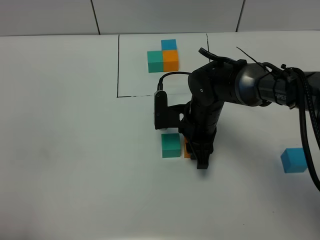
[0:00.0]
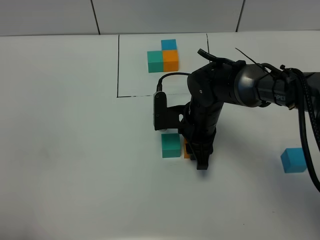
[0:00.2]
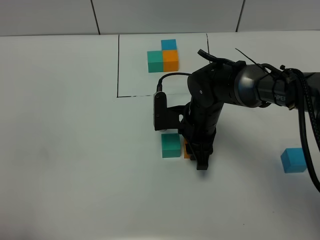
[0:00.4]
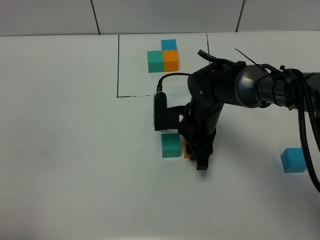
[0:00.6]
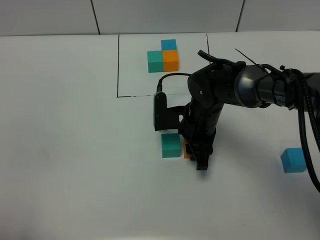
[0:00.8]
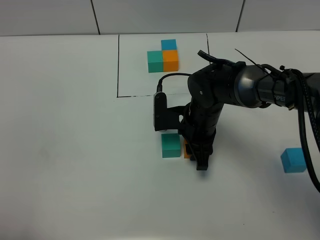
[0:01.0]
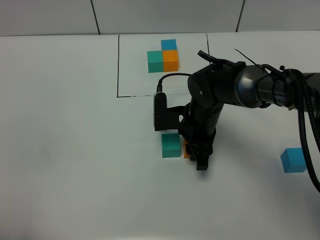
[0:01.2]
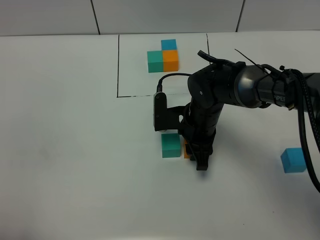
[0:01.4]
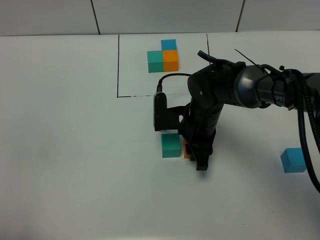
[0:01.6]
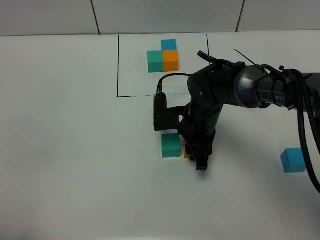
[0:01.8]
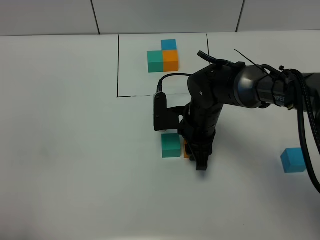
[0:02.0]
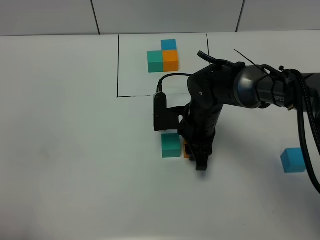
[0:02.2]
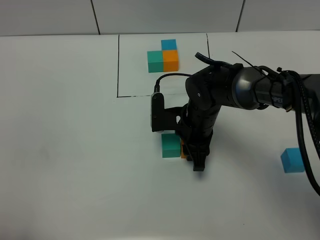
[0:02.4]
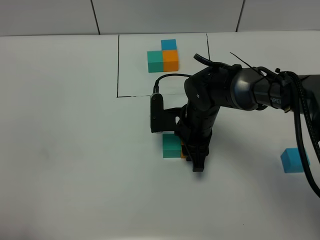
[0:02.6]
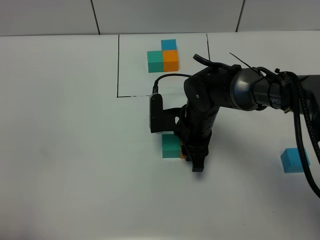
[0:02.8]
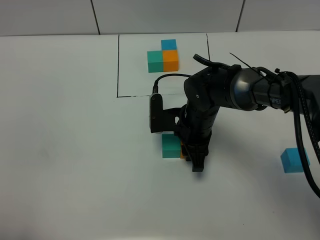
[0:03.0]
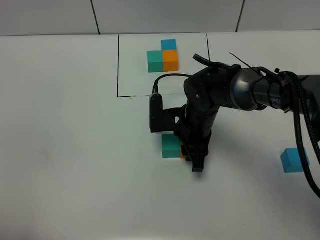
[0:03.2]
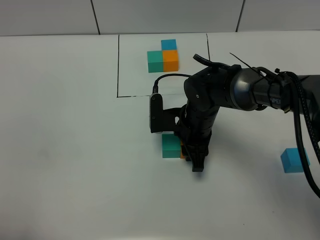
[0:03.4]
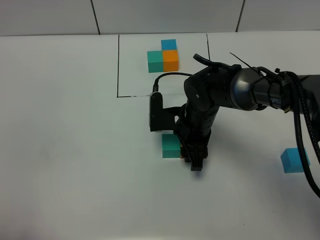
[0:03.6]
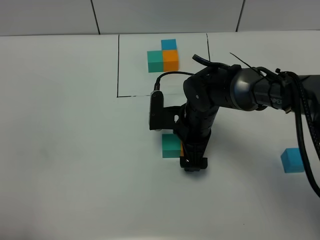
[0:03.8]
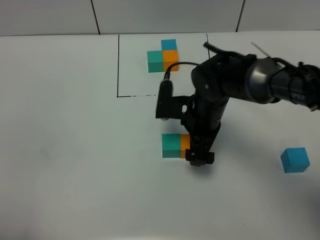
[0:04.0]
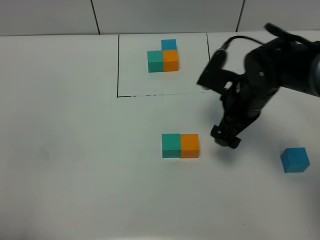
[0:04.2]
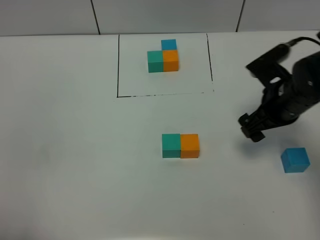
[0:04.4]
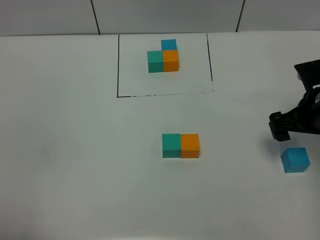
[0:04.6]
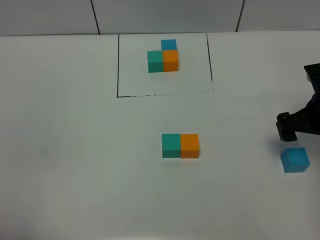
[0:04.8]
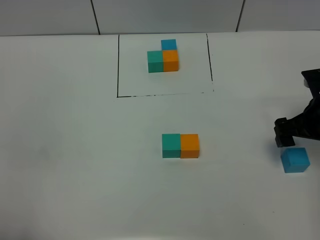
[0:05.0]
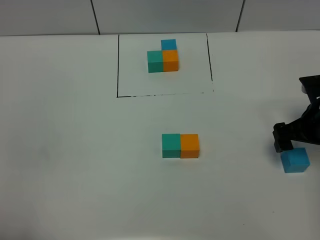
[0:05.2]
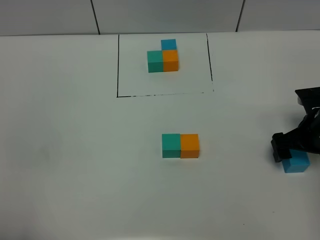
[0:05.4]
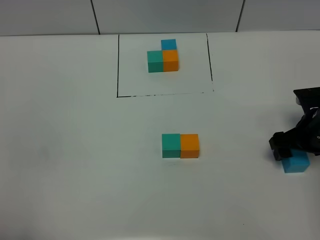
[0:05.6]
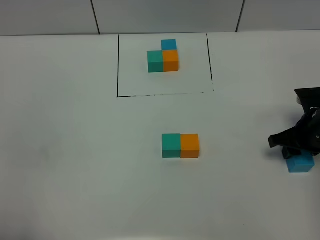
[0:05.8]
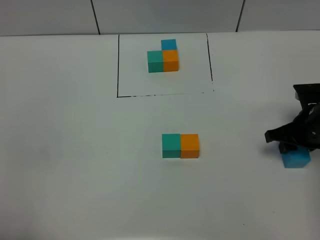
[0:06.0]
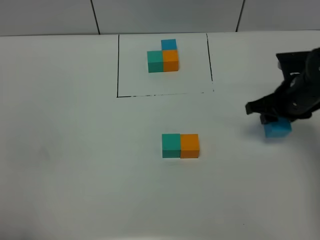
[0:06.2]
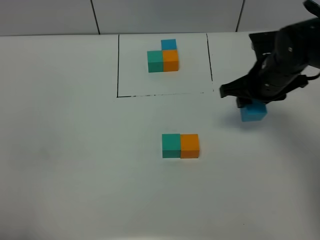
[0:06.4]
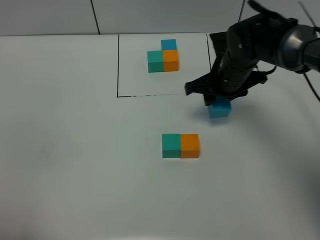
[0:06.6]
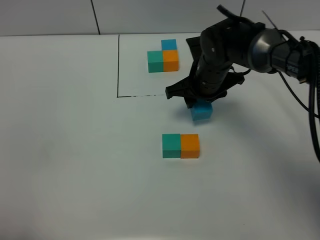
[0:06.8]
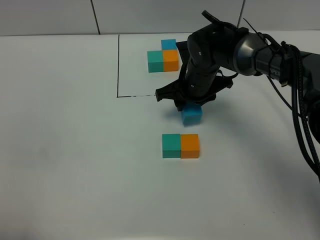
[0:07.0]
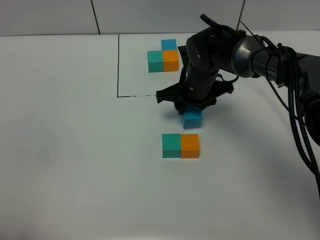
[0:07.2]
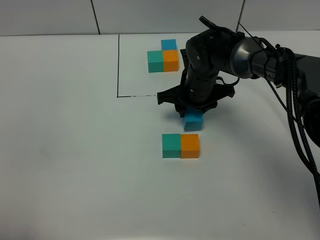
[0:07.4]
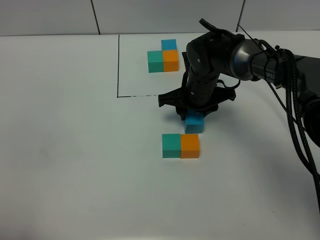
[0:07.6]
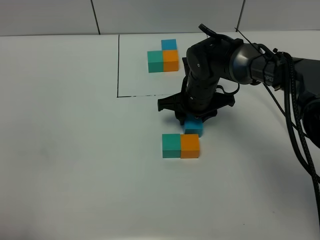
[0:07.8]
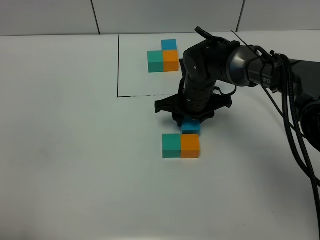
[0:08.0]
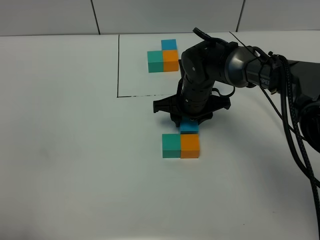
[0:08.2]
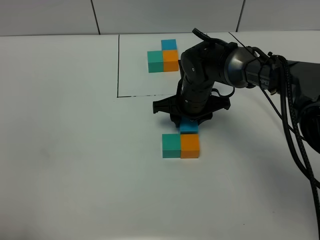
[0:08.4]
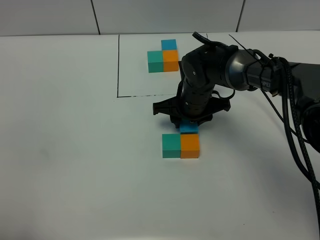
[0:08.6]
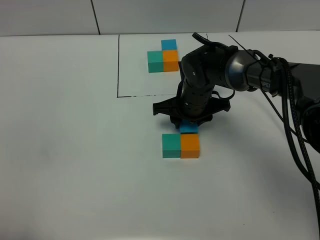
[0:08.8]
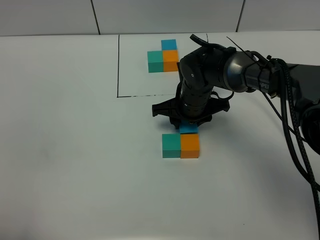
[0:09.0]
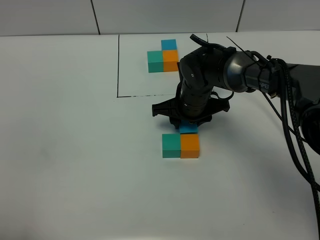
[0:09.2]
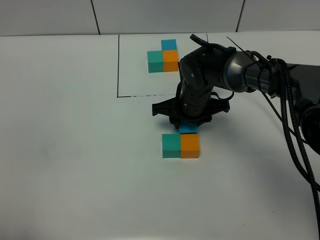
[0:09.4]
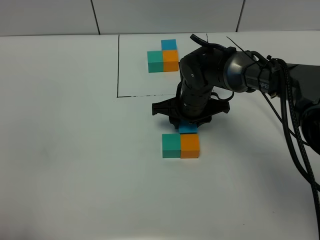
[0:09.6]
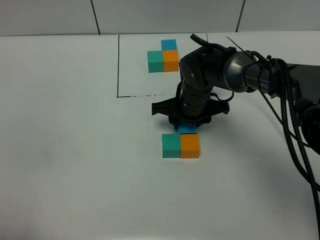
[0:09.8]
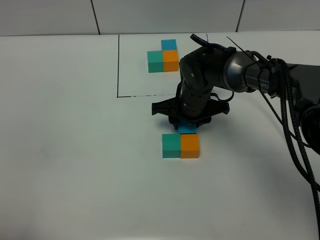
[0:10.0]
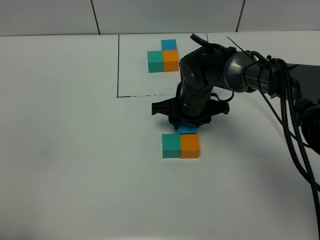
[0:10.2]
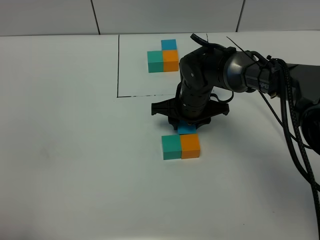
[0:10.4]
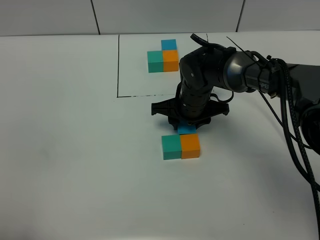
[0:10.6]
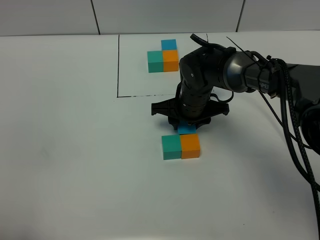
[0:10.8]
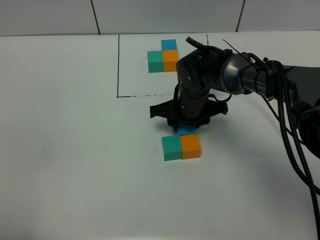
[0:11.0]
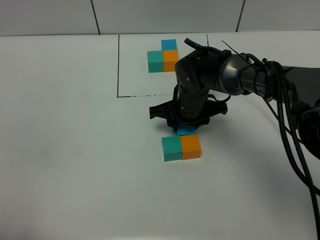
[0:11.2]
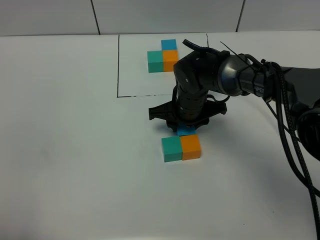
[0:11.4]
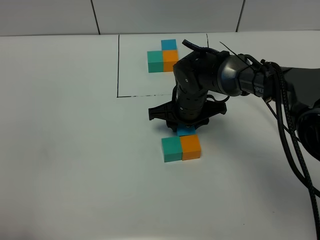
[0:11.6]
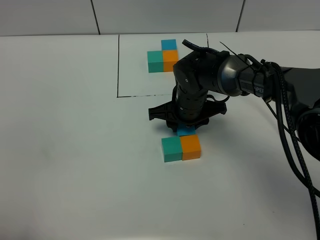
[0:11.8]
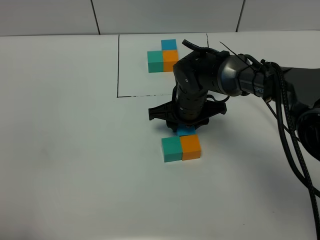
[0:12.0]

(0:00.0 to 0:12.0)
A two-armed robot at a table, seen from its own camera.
Task of the whole recording: According to the building block template in front, assemble the scattered blocks together.
Step, 0:00.0 - 0:03.6: Put the orange build block on the right of the green build block.
0:00.0 - 0:03.0: Both grippers stay put.
0:03.0 - 0:04.4: The right gripper goes some 20 cm to the right and upward, and opens up.
0:04.4 - 0:06.0: The right gripper heads to the right and downward, covering about 10 cm, and closes its fingers.
0:06.0 - 0:07.6: The right gripper shifts some 20 cm to the left and forward.
0:07.6 - 0:09.0: The grippers stay close to where they were, moving slightly.
0:09.0 - 0:12.0: Both grippers stay about where they are.

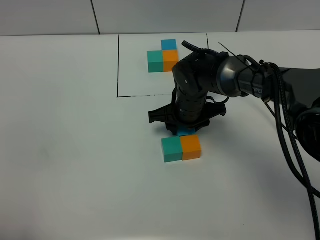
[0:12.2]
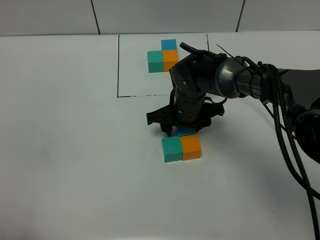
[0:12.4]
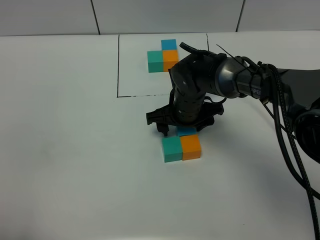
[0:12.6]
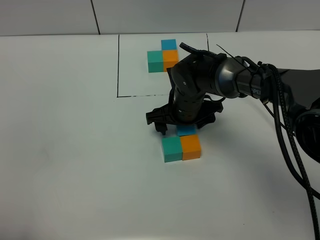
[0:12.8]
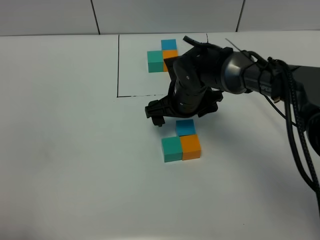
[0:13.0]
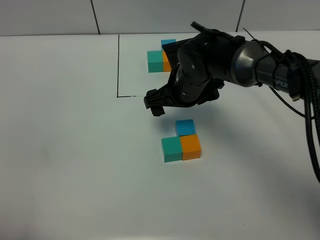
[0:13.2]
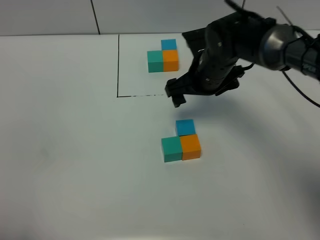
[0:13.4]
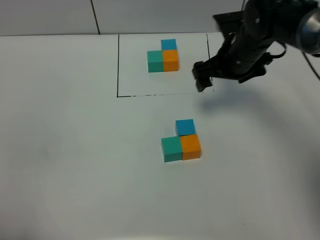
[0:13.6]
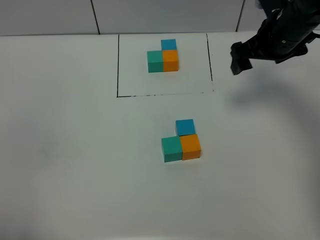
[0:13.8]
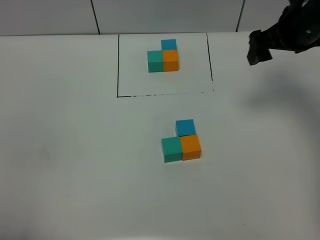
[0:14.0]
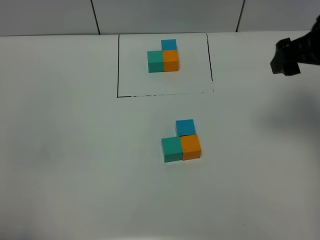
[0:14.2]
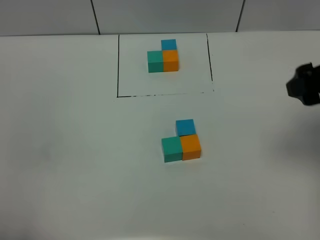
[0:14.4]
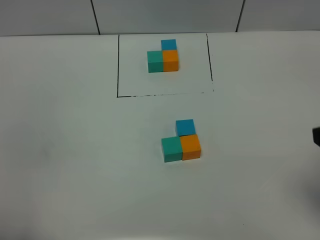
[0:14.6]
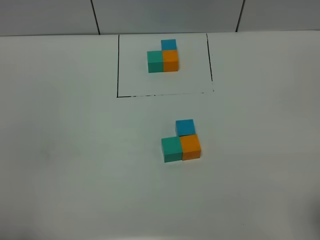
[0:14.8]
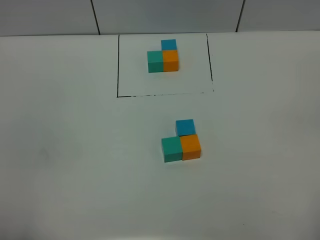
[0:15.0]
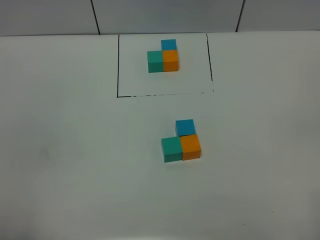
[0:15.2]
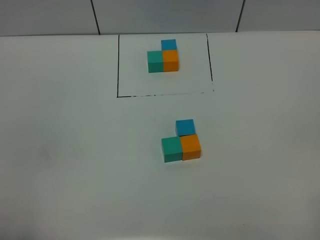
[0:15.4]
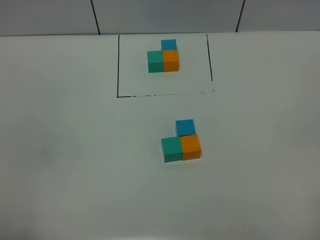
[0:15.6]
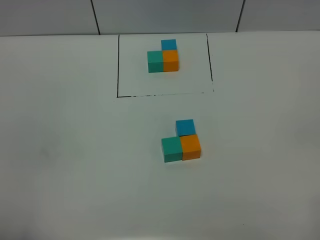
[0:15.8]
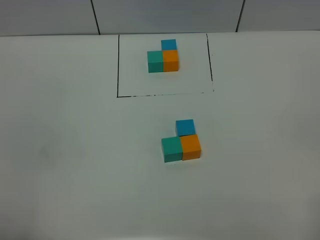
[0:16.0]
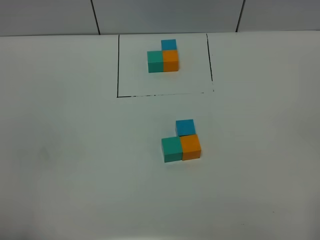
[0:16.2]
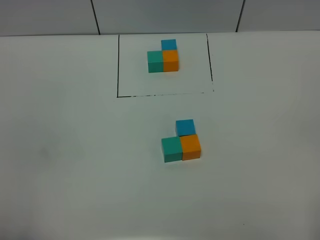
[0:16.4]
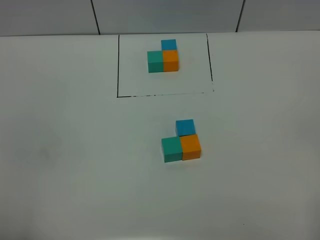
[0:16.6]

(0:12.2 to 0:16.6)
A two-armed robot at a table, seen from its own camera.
Task of the whole recording: According to the building block template in front, assemble the scattered blocks together.
0:12.2 - 0:13.6: The right gripper moves to the right and upward, roughly 15 cm, and opens its fingers.
0:13.6 - 0:15.2: The right gripper shifts some 40 cm backward.

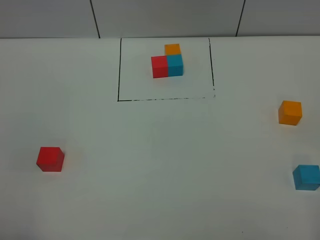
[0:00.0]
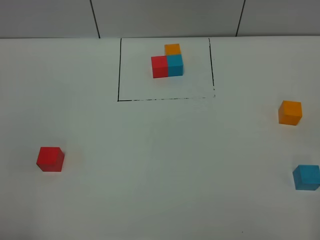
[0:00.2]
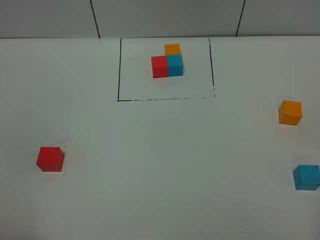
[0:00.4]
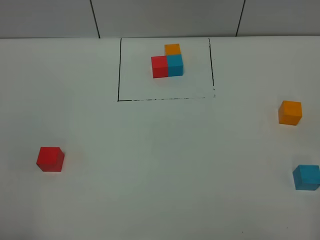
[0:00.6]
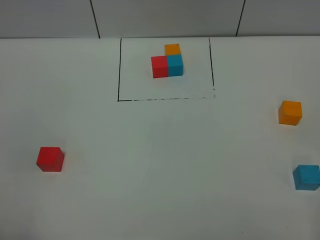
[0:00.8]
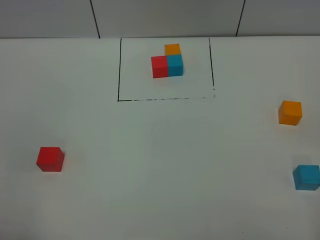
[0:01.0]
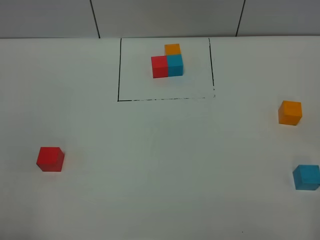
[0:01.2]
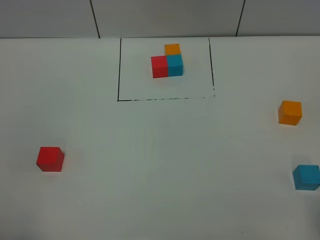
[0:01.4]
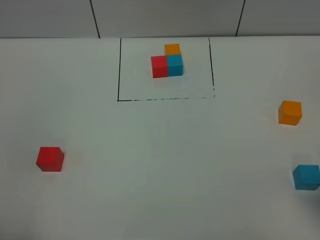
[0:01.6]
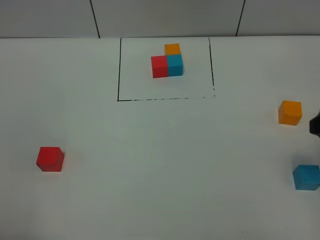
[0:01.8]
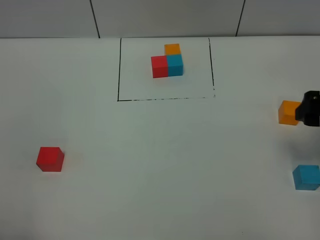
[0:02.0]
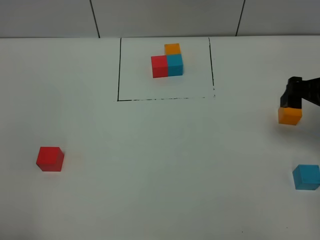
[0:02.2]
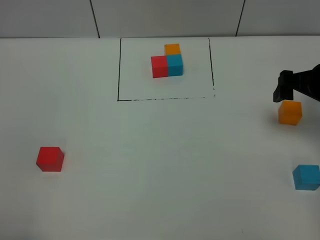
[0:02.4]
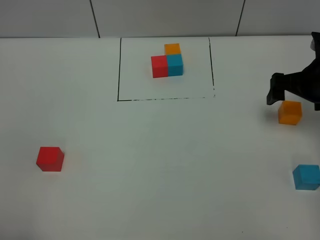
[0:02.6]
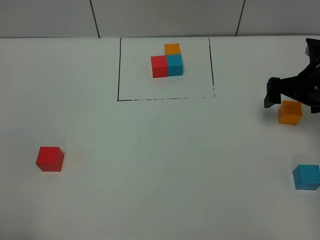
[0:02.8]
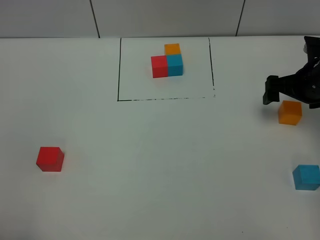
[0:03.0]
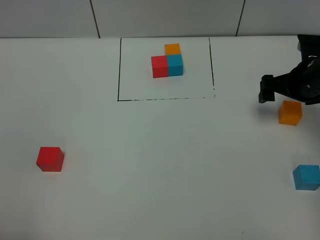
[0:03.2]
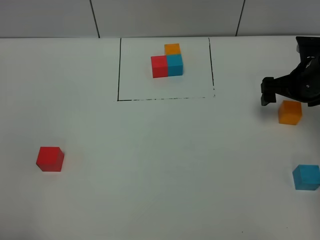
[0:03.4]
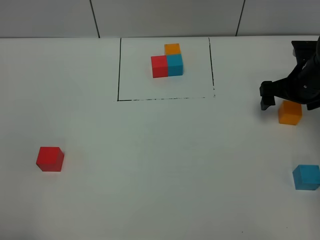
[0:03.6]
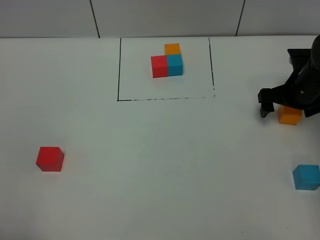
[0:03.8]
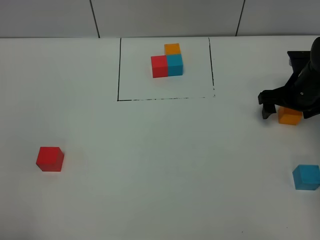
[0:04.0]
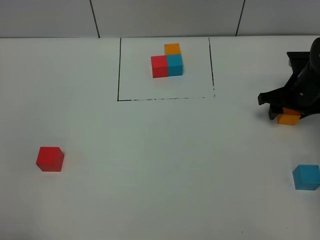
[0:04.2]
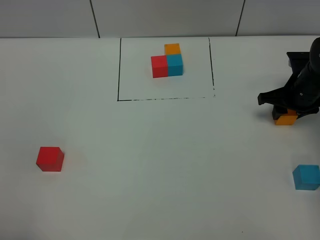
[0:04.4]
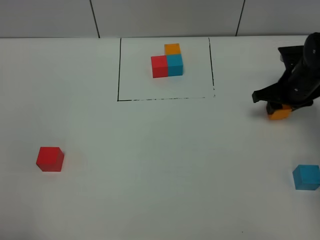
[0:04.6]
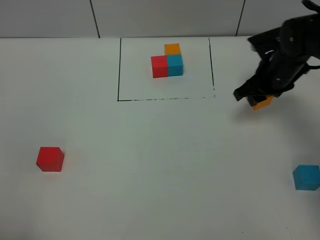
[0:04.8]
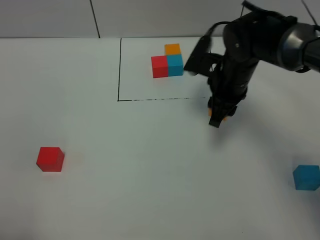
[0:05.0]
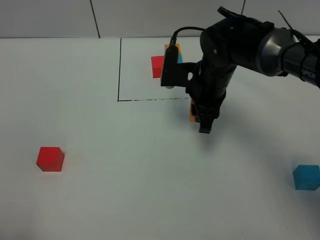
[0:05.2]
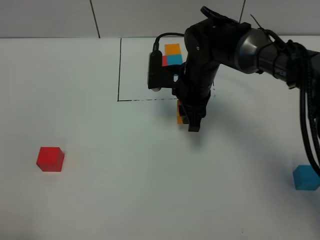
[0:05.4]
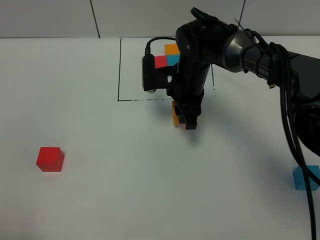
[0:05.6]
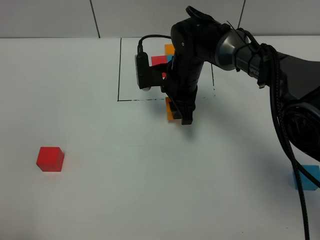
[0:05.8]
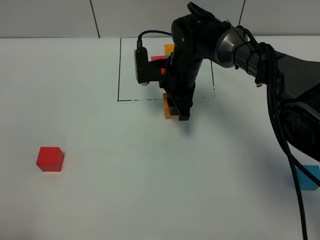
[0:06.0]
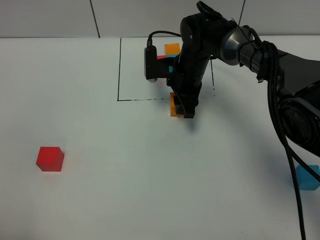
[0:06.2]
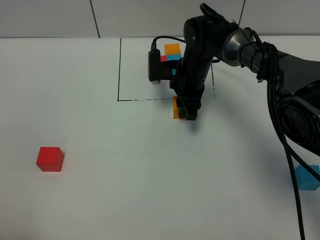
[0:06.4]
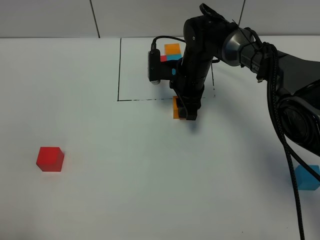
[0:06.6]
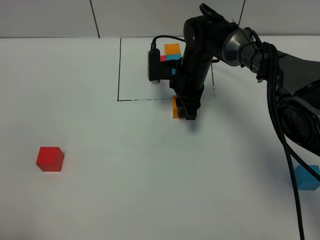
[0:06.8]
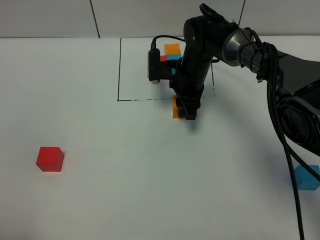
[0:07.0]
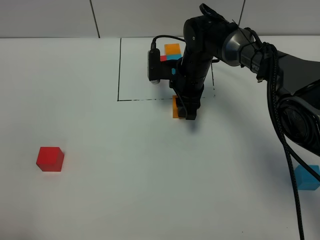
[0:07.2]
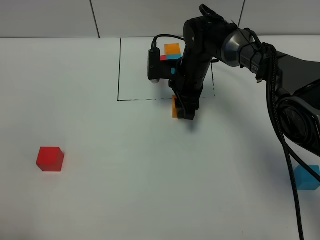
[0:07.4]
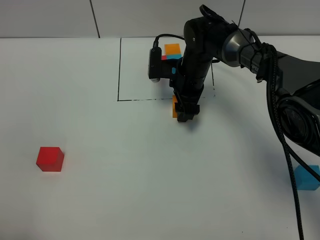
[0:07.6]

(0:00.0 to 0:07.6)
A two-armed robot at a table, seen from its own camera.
Task of the whole recording: According to the building block template in front, assemble the scattered blocks together.
Step, 0:00.0 - 0:07.6: Put the orange build block in the center of the table.
0:01.6 - 0:03.0: The right gripper heads forward and downward, covering some 30 cm.
0:03.0 - 0:04.6: The right gripper closes.
0:04.6 - 0:06.0: The right gripper goes roughly 20 cm to the left.
0:06.0 - 0:07.6: The right gripper opens its fingers.
